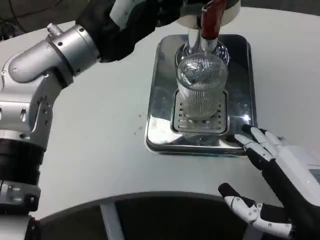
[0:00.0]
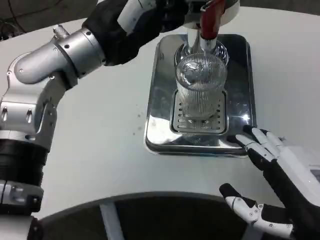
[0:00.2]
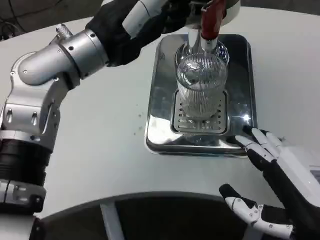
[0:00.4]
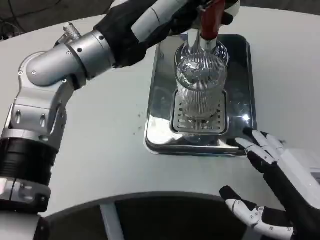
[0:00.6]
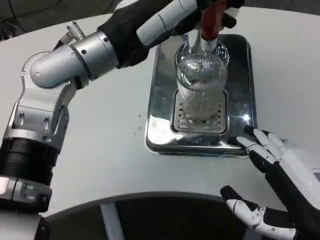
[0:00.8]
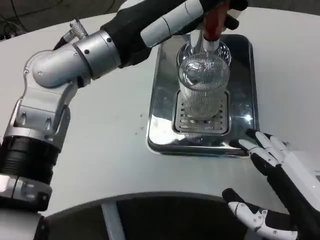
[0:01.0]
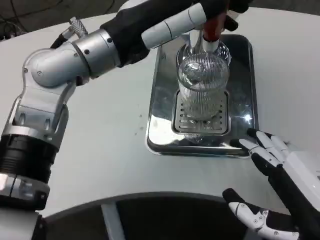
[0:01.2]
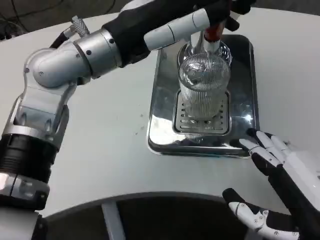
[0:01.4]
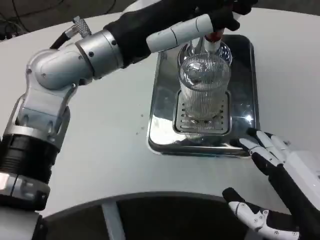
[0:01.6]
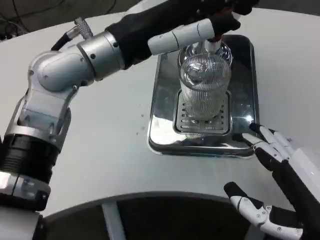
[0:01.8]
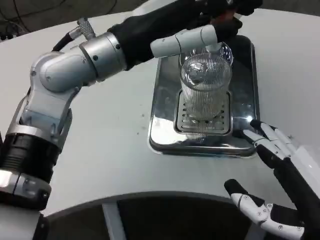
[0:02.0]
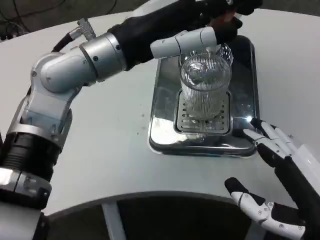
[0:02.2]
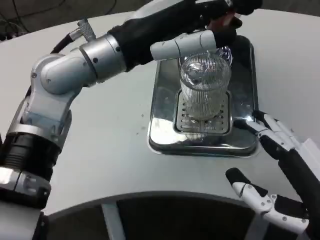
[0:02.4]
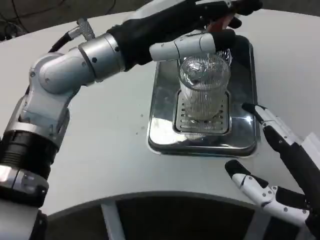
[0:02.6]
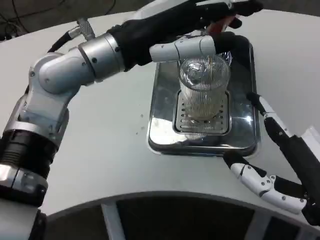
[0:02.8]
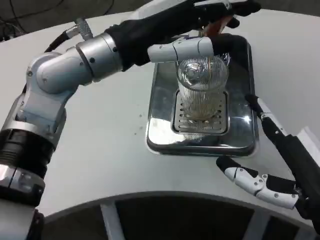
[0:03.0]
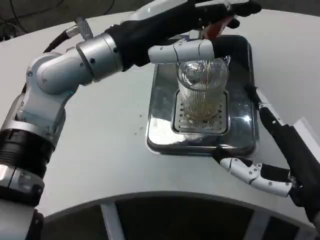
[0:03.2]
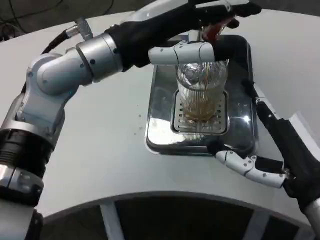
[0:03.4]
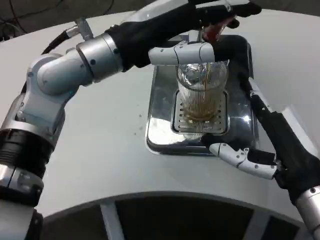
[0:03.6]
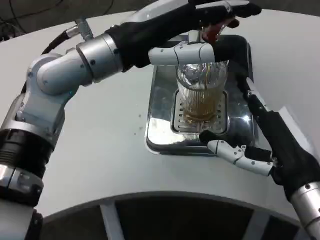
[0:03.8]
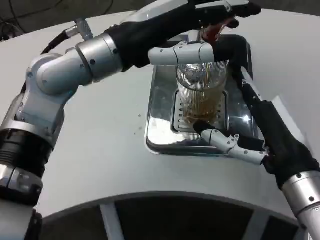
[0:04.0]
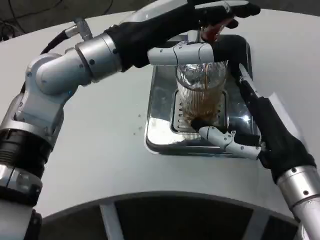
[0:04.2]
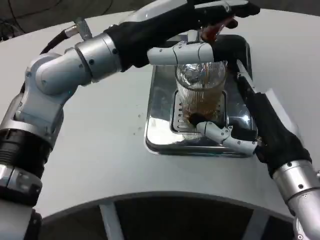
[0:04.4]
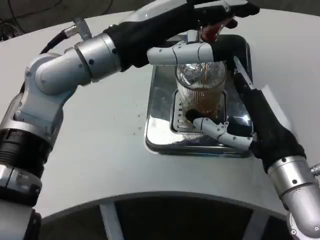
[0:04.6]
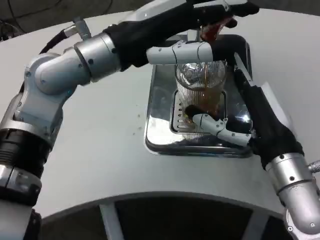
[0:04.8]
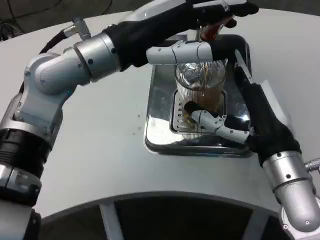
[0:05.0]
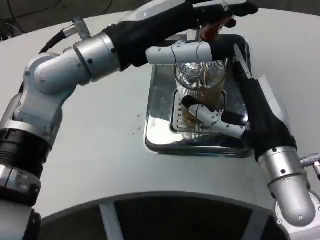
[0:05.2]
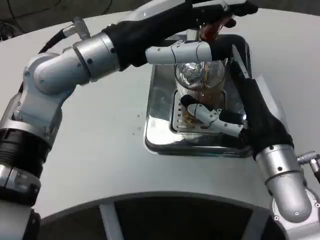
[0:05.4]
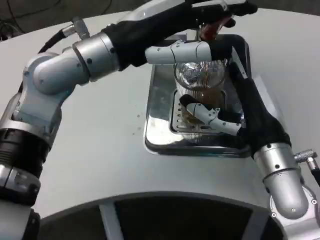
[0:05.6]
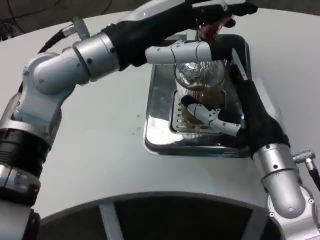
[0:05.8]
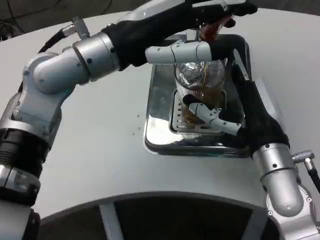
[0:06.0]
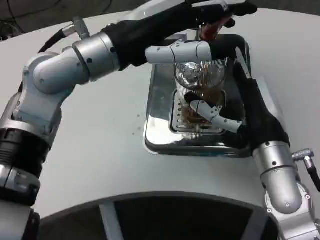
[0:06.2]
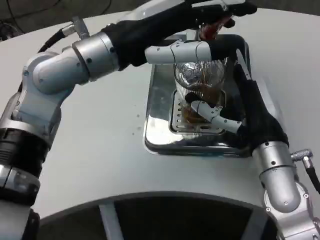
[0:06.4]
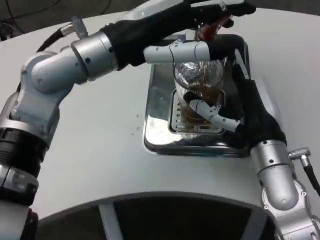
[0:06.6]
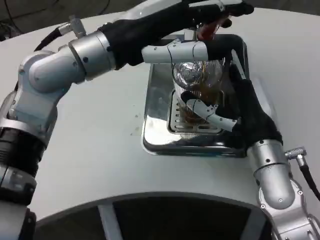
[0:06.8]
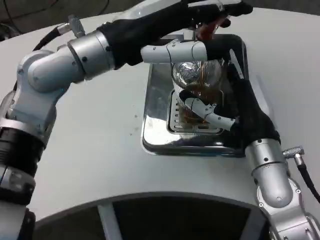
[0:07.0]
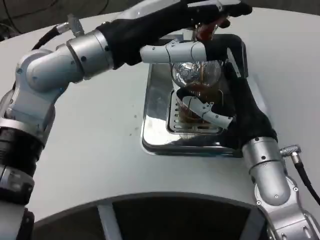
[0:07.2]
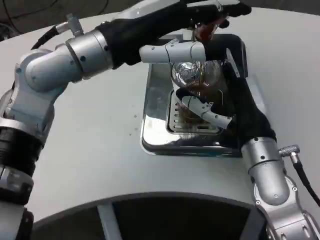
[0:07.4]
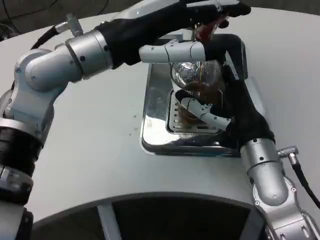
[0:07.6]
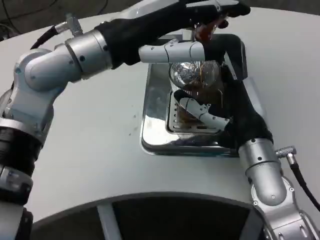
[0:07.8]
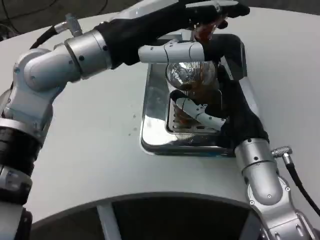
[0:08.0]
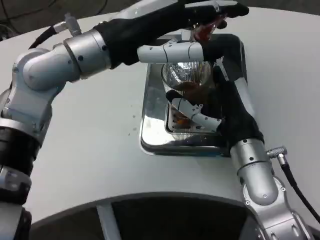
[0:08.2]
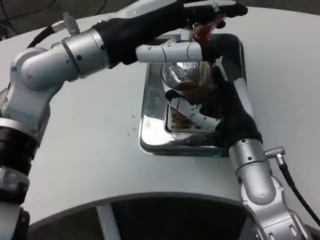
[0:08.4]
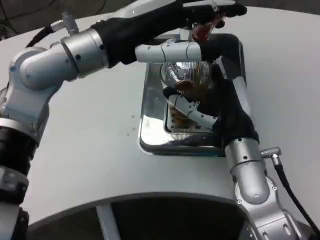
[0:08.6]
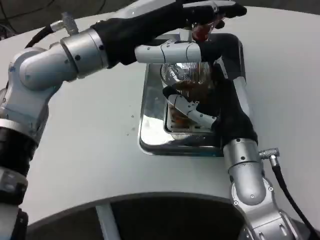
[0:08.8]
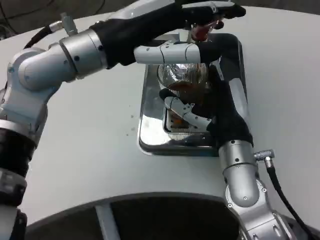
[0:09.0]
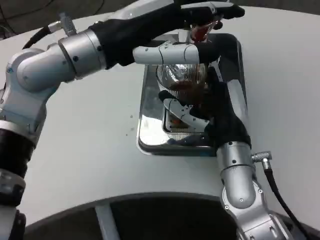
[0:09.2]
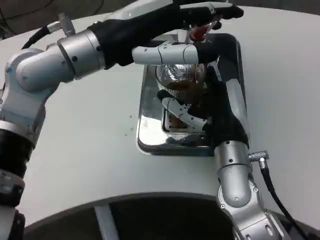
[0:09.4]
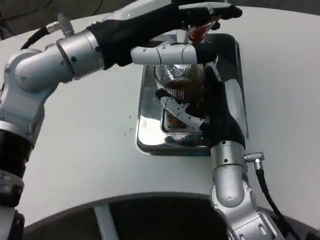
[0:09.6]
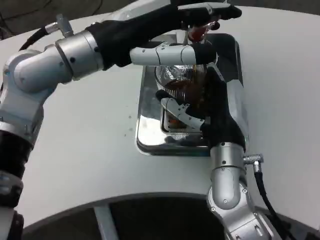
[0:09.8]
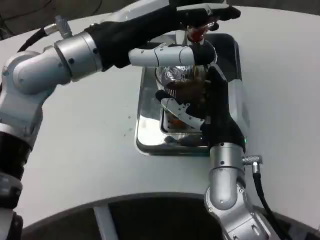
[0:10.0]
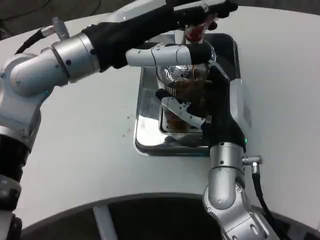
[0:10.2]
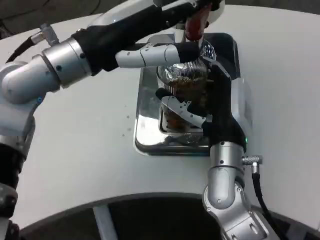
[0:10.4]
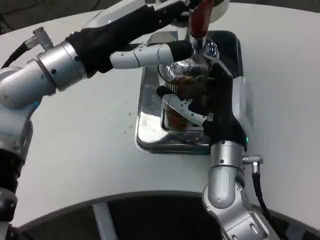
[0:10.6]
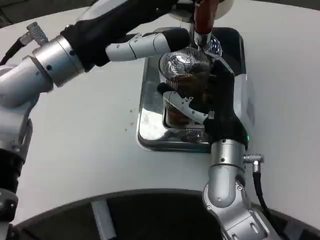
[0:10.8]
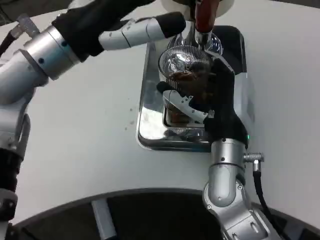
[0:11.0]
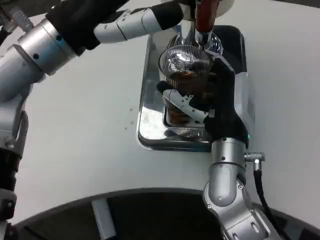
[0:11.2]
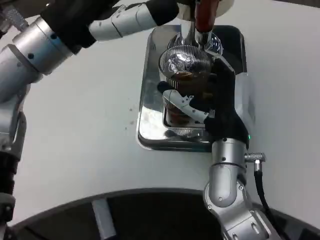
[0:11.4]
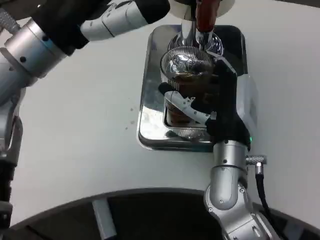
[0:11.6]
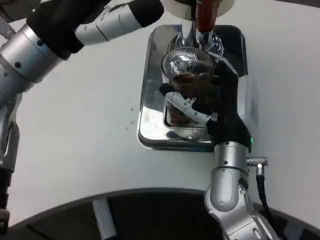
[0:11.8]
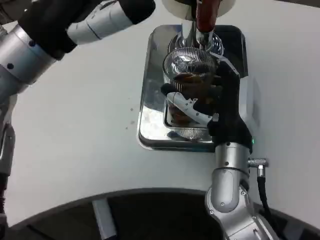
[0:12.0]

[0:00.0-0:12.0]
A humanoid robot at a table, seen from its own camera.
Task of the whole recording: Grasp the cup under the faucet to collect the drink, then remove the cup.
0:03.0 to 0:04.4: The right hand shifts about 10 cm forward.
0:04.4 to 0:06.0: There are only small adjustments of the hands.

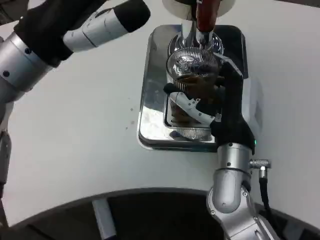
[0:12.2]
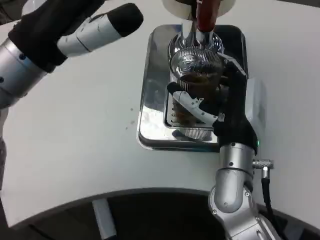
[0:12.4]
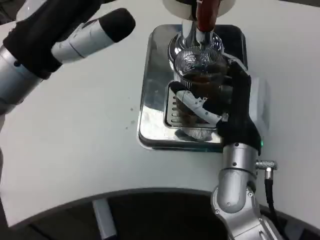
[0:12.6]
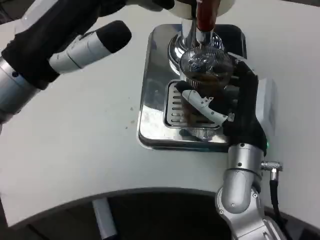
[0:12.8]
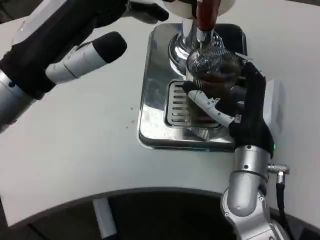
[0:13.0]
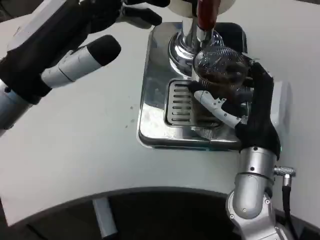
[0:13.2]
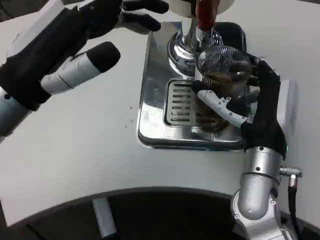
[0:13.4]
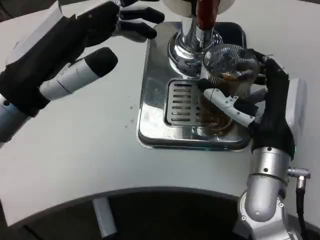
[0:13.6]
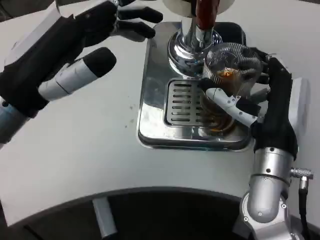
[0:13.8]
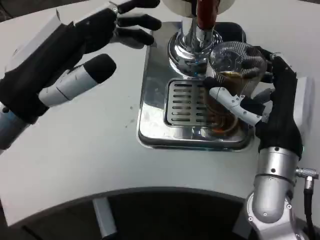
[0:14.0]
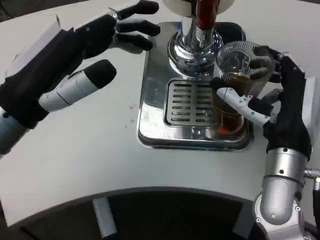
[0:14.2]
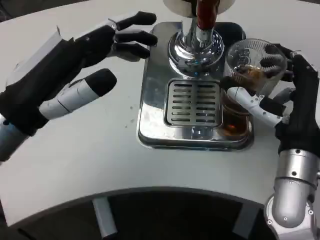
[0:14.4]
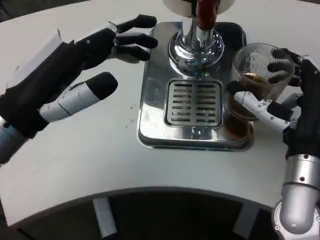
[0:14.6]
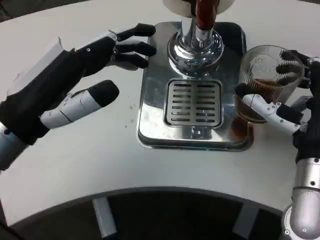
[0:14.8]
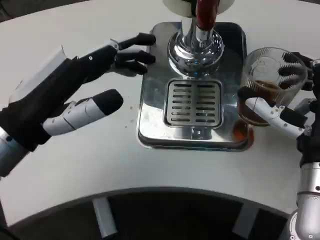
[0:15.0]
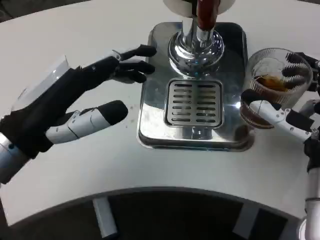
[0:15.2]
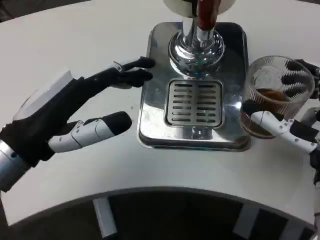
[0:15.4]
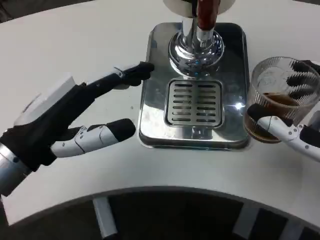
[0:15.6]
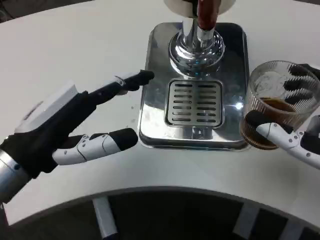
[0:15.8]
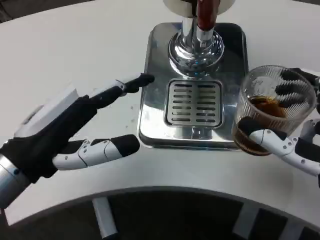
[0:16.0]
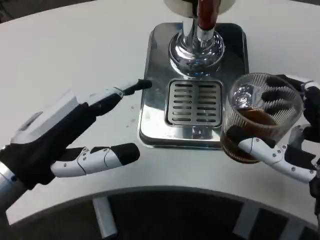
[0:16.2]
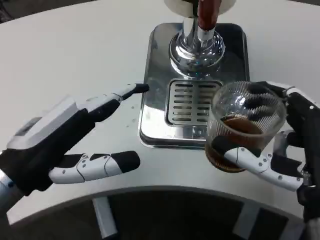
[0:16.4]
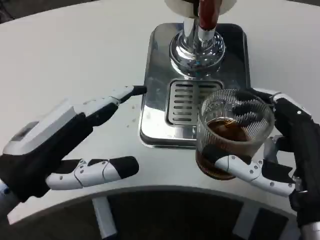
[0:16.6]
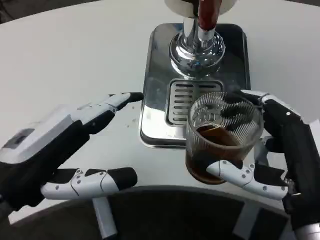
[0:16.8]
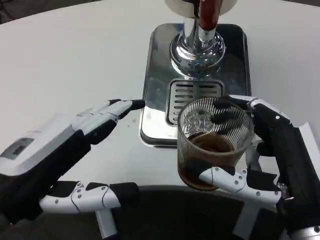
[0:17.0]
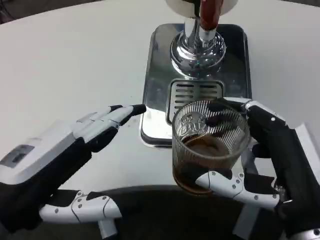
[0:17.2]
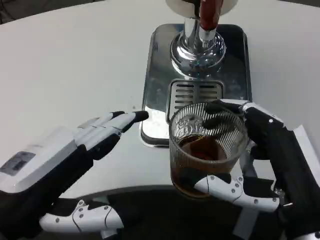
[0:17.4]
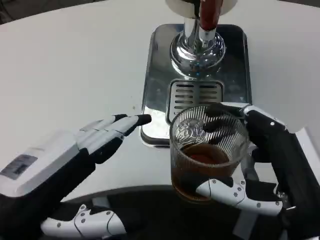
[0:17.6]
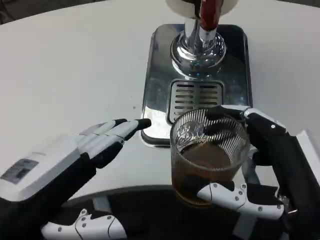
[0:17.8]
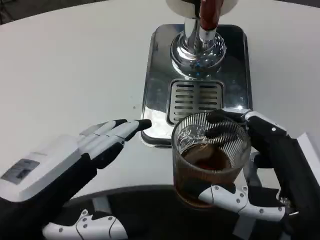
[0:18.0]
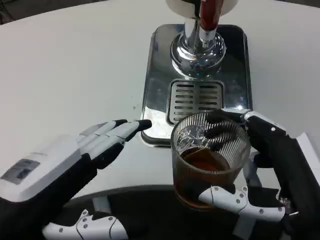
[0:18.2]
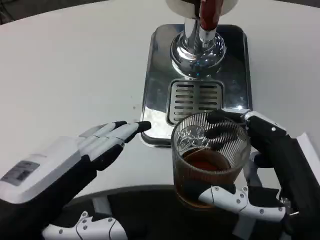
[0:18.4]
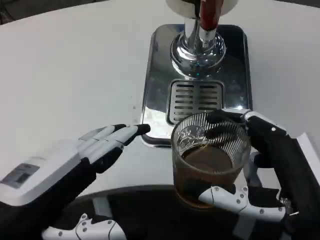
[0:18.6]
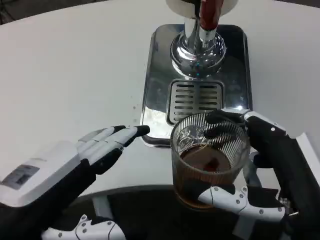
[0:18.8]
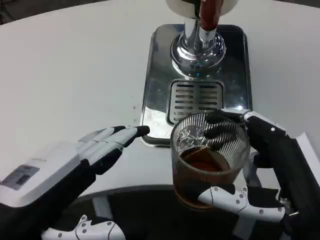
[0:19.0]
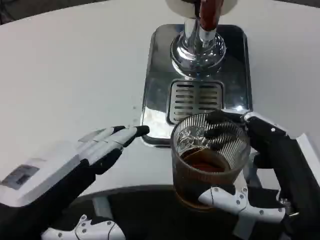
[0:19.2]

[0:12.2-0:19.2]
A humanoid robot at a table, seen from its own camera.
Task of the whole recording: Grasp the cup under the faucet to collect the drink, then remove the cup.
0:12.2 to 0:13.6: The left hand changes place by about 5 cm.
0:13.6 to 0:15.0: The right hand goes roughly 5 cm to the right.
0:15.0 to 0:16.4: The right hand heads backward, covering about 10 cm.
0:16.4 to 0:17.8: The left hand is displaced backward by approximately 5 cm.
0:17.8 to 0:19.2: Both hands stay about where they are.

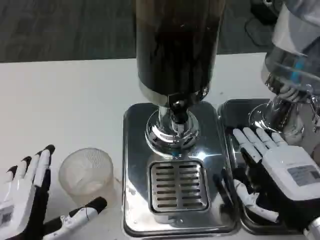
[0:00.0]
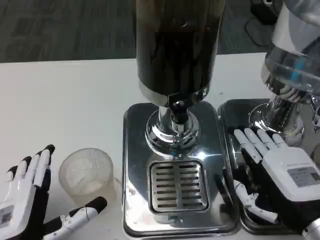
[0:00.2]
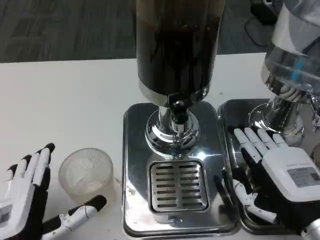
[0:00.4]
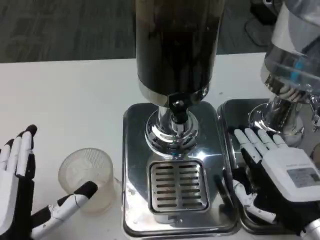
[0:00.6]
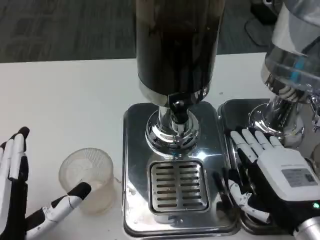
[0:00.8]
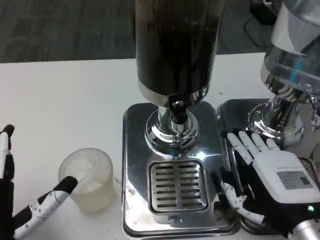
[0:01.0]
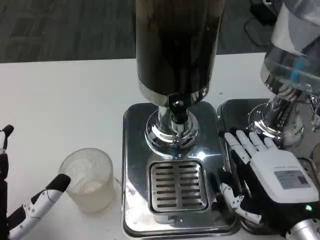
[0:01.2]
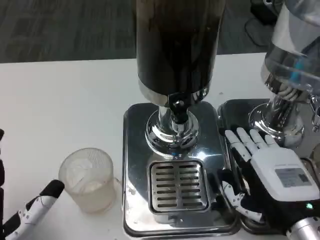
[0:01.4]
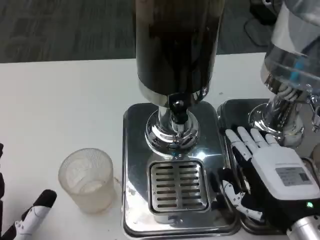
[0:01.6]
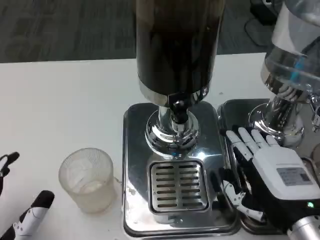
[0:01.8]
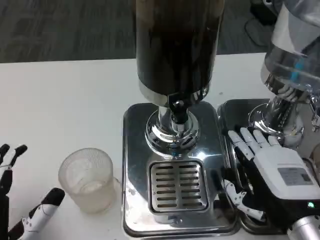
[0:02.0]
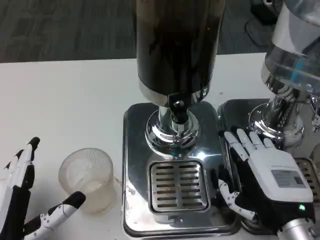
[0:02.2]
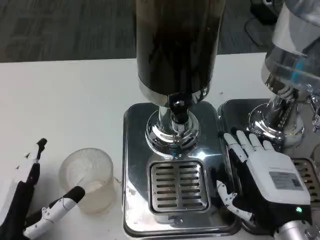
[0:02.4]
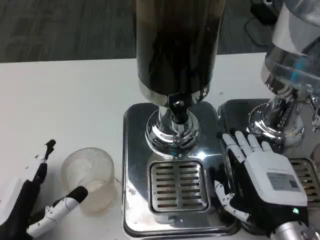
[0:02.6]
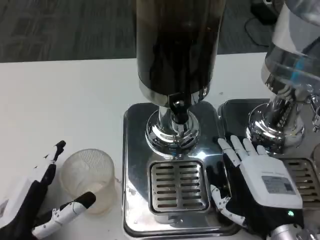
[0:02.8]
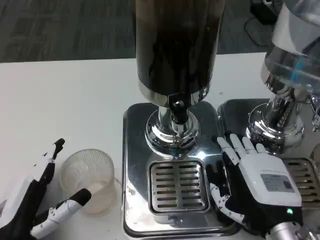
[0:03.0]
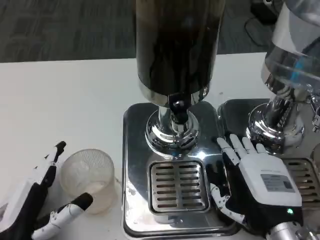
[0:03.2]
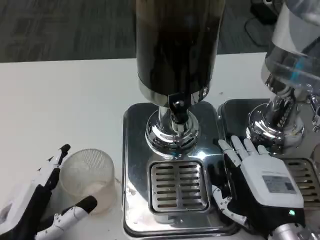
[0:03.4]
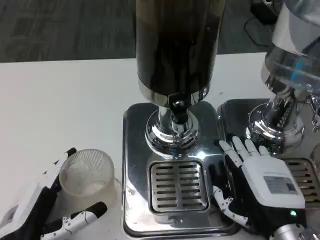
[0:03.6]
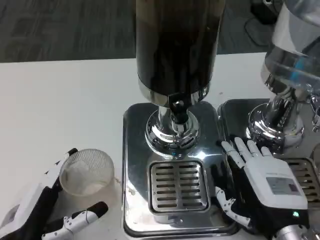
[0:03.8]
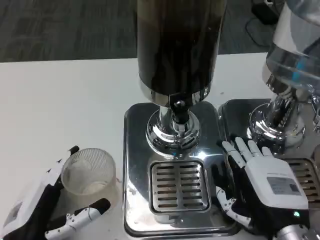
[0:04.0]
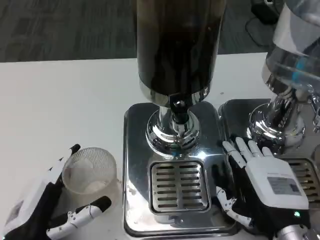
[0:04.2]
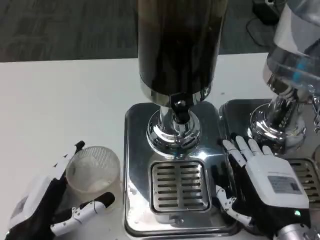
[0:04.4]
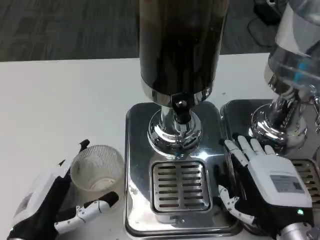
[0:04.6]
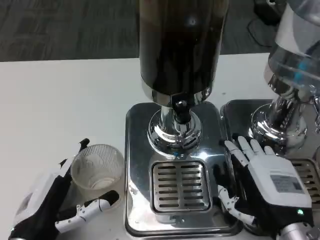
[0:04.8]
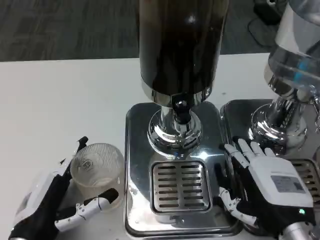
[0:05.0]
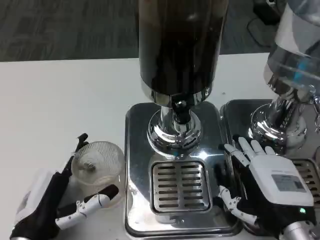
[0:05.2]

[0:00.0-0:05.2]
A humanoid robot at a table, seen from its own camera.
Task of the whole recording: Grasp the cup under the faucet to collect the drink, then remove the cup.
0:00.0 to 0:01.8: The left hand moves some 5 cm.
